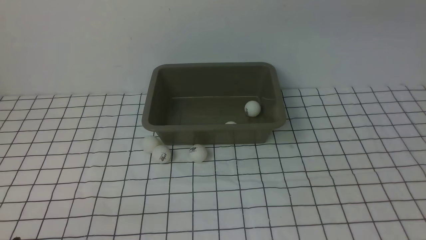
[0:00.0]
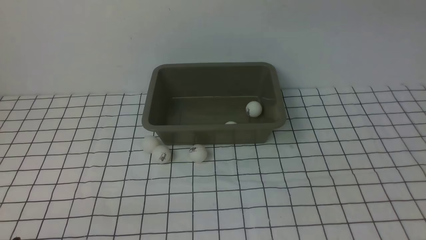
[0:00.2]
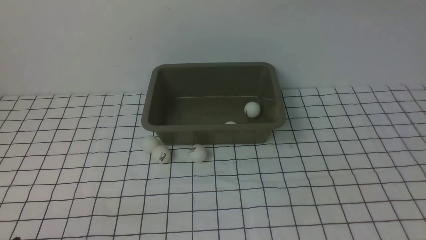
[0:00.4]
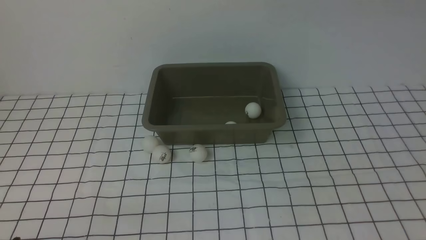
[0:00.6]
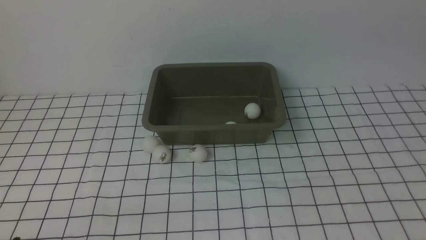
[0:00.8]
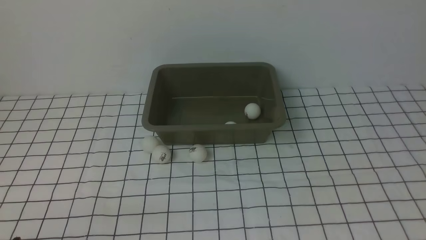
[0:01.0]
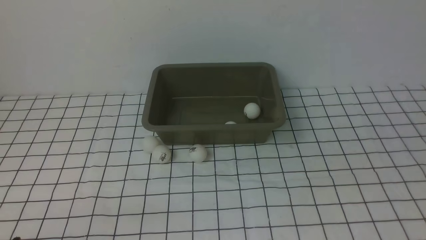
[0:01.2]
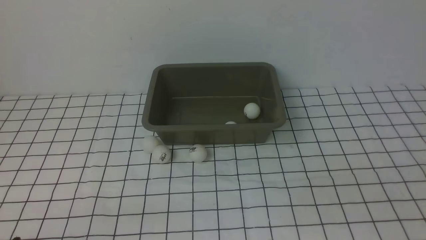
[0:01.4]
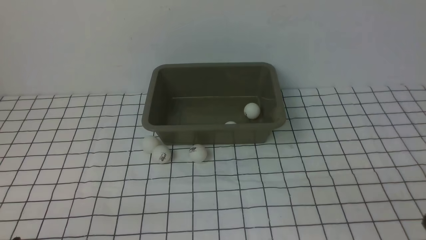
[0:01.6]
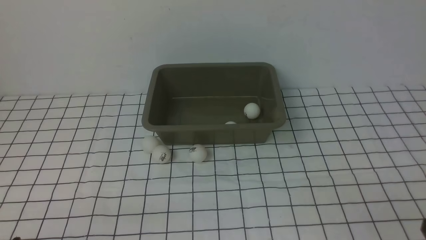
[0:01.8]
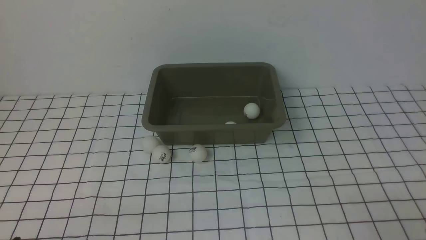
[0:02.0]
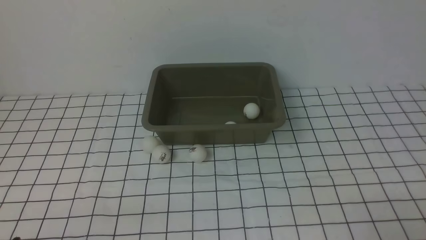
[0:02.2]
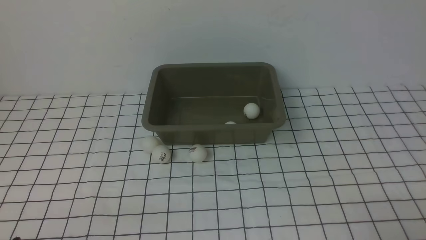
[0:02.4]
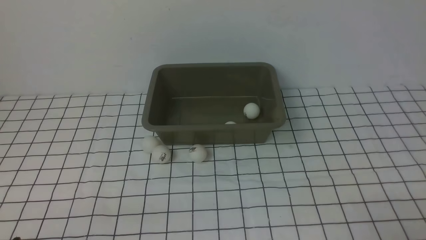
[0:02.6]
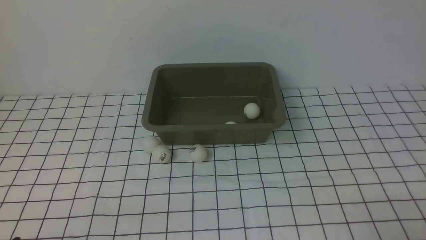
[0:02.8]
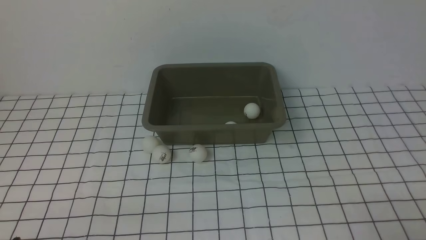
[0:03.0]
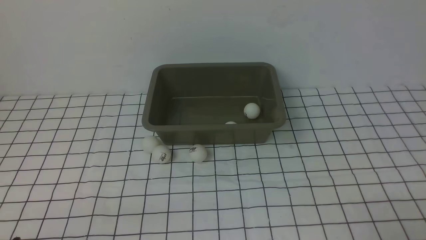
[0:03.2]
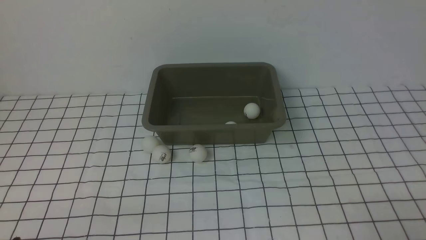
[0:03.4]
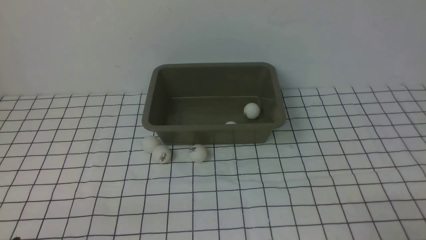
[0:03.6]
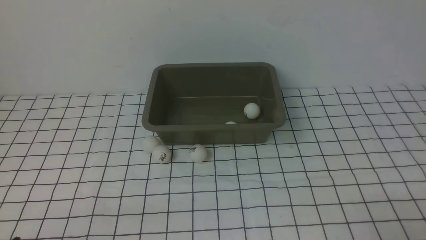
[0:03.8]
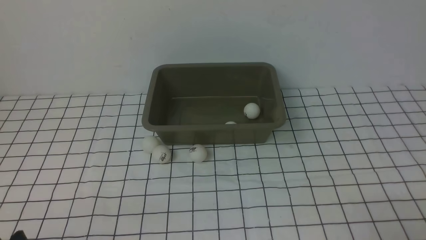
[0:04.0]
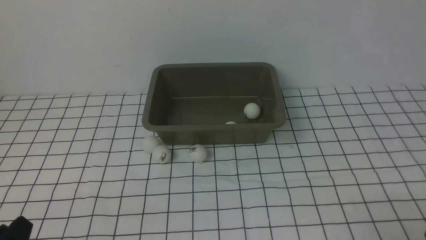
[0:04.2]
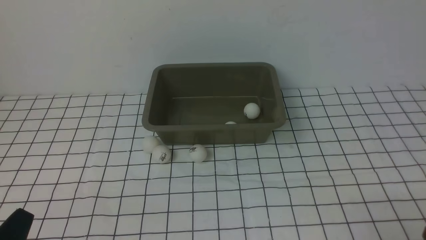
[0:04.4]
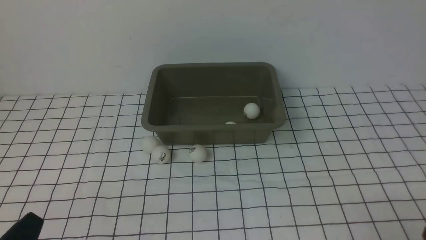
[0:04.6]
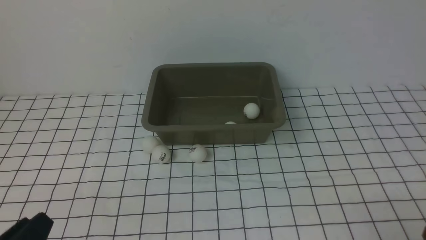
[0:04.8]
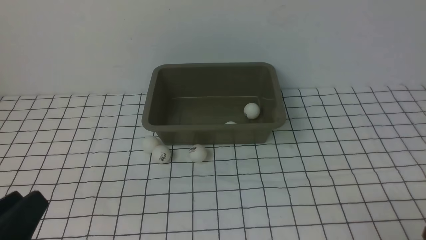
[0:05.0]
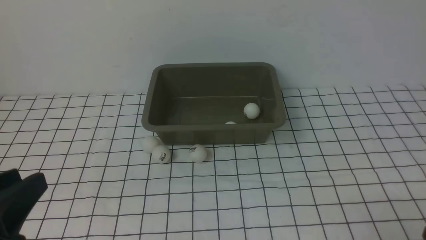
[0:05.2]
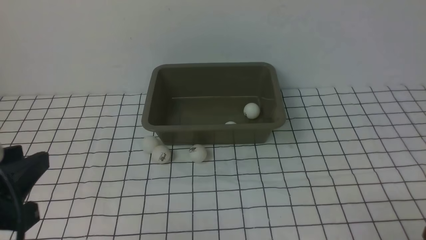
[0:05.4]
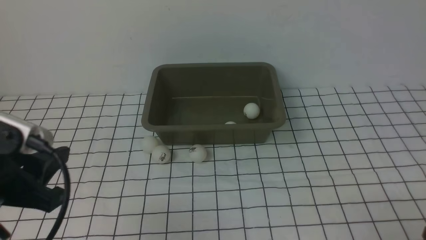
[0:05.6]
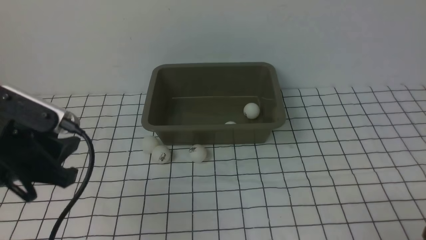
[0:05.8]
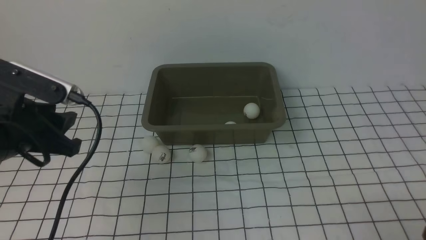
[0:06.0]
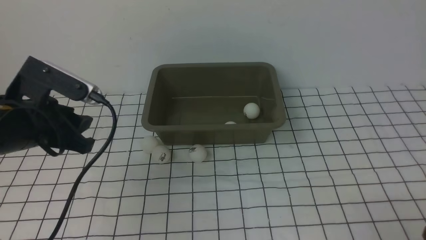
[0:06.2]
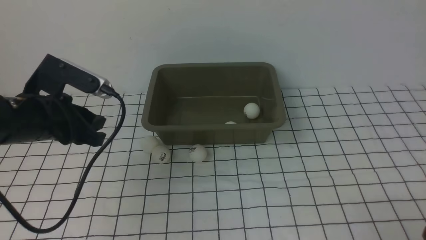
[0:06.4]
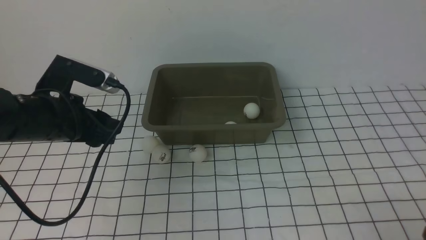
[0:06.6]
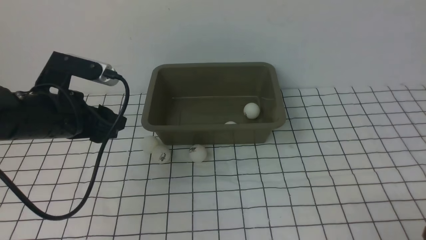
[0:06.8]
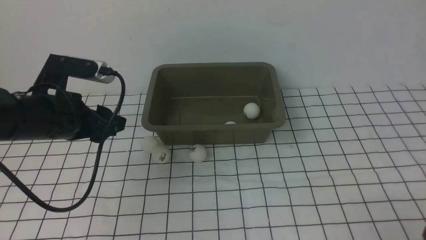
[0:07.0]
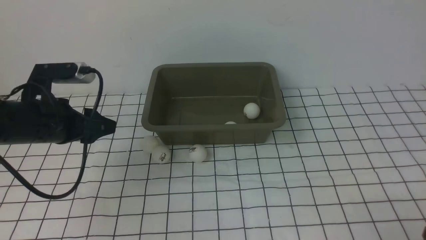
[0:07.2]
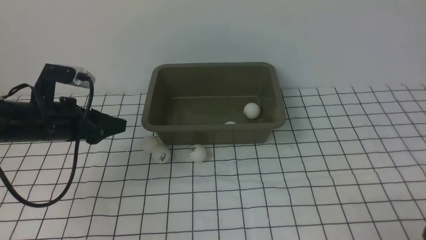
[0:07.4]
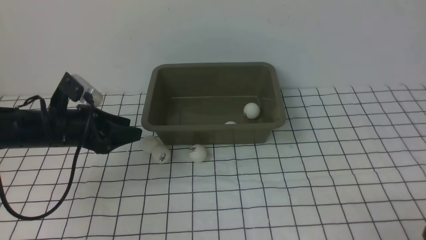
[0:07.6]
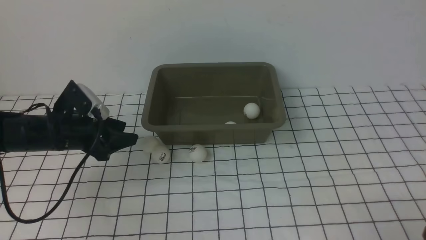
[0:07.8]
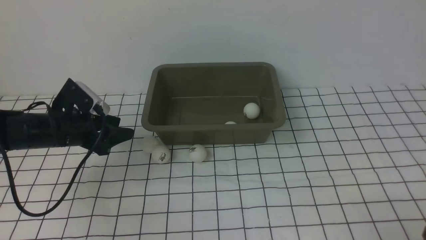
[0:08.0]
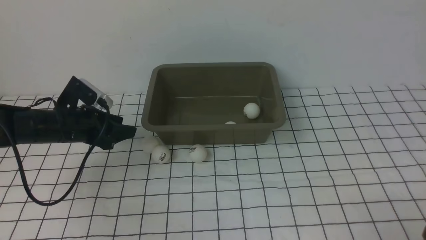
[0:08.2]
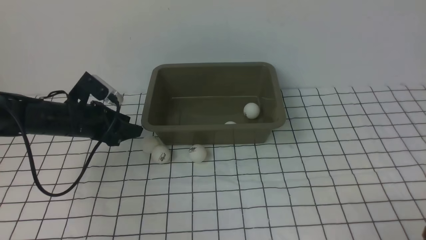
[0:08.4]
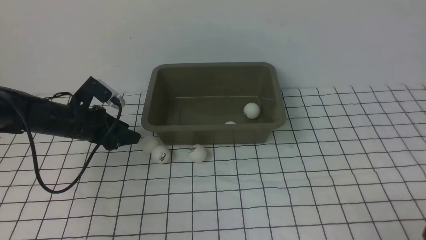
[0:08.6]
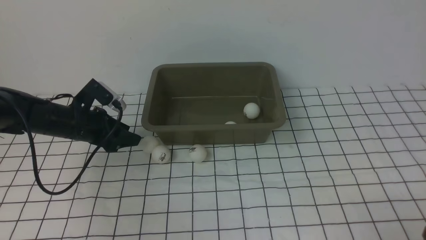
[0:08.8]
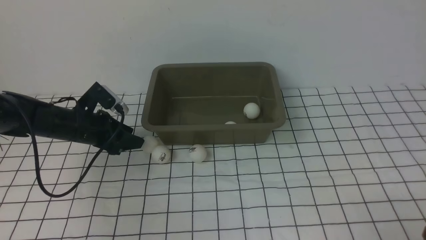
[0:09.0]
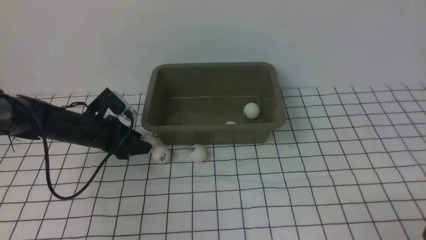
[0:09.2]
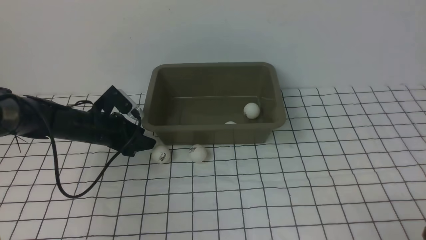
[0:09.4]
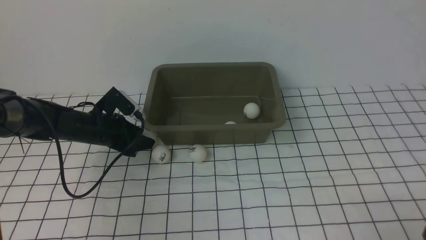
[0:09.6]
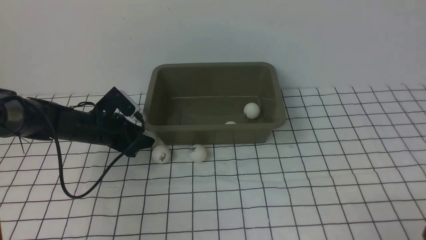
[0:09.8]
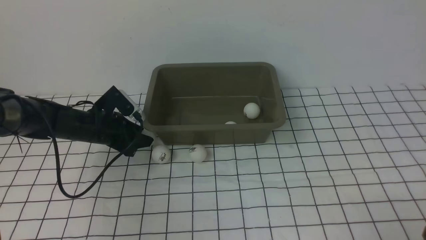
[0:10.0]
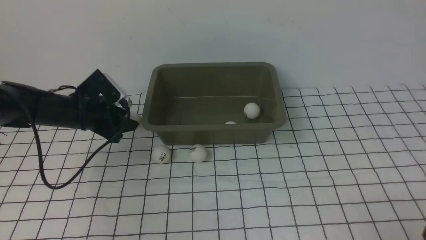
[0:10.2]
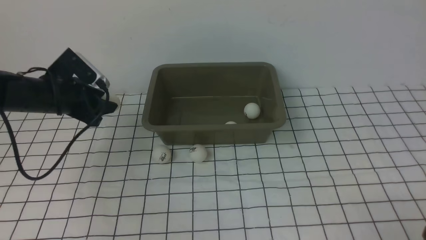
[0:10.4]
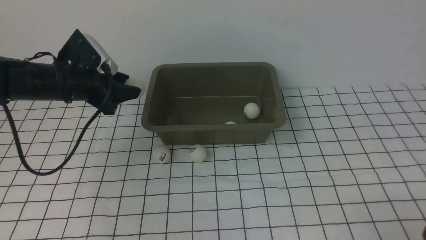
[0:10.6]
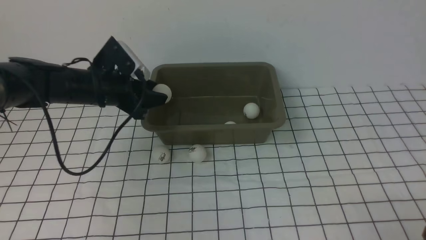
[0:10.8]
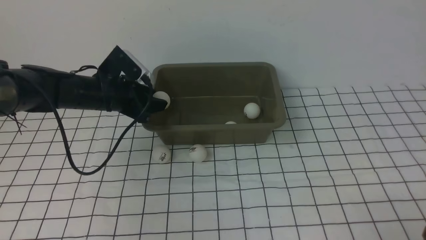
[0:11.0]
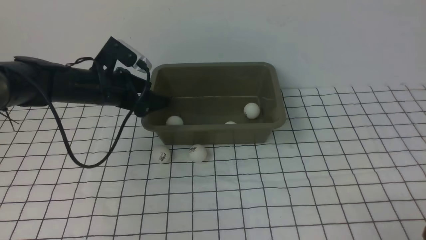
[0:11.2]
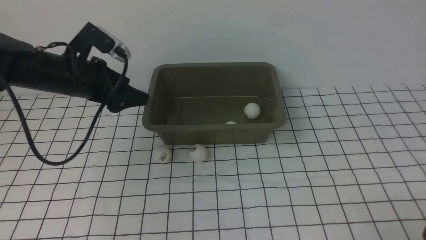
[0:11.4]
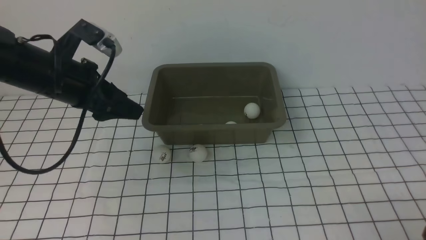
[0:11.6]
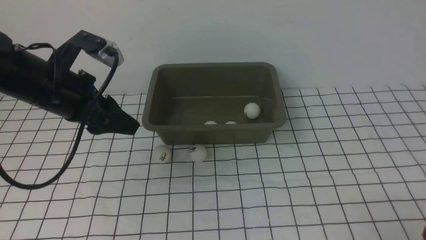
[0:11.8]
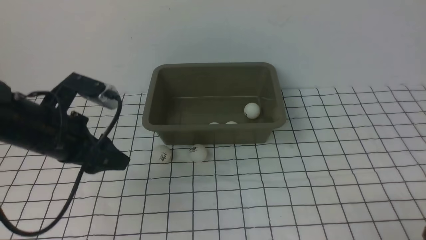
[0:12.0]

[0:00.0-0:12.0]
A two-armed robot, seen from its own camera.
Step, 0:00.0 to 0:10.0: use the left arm to clamp the table tennis ball closest to it.
Step, 0:10.4 to 0:11.2: use the left arm to put the table tennis ball into the box.
0:04.4 to 0:06.0: The left gripper goes approximately 20 cm forward and upward.
0:06.0 to 0:07.6: The left gripper shifts approximately 15 cm forward and downward, and opens.
0:07.6 to 0:09.0: The left gripper moves forward and downward, roughly 10 cm.
0:09.0 to 0:10.4: The left gripper moves upward, some 5 cm.
0:10.4 to 0:12.0: The left gripper goes about 10 cm backward and upward, and opens.

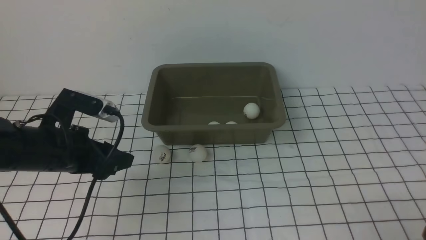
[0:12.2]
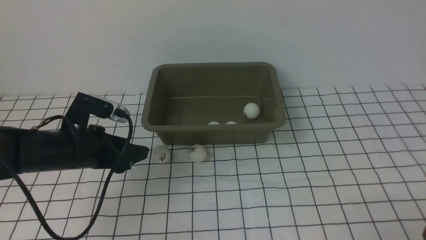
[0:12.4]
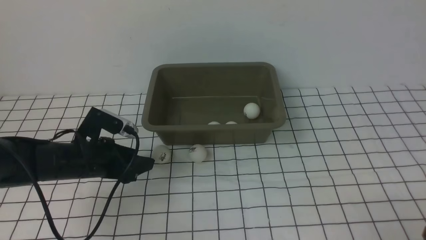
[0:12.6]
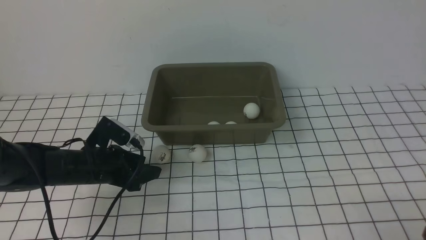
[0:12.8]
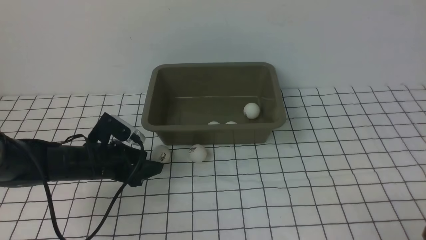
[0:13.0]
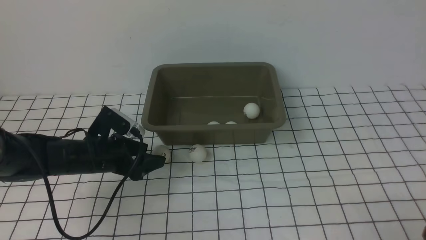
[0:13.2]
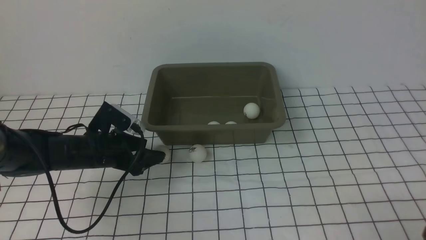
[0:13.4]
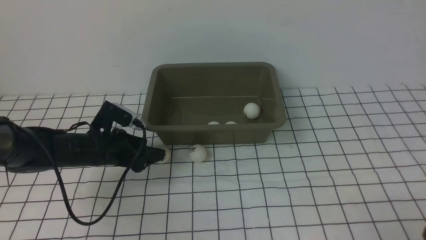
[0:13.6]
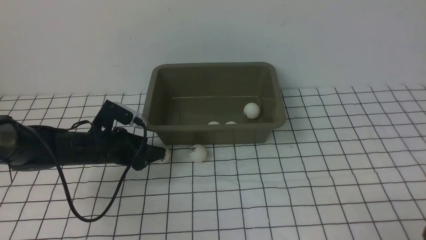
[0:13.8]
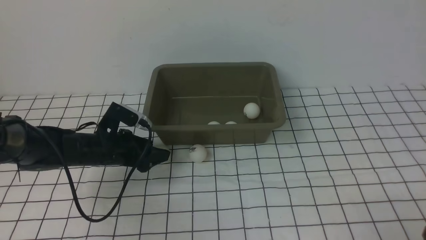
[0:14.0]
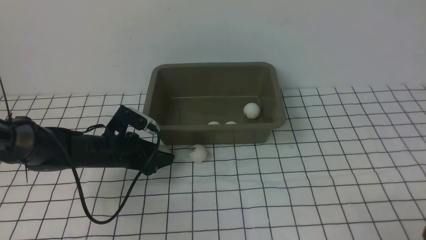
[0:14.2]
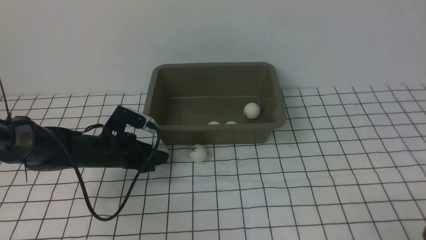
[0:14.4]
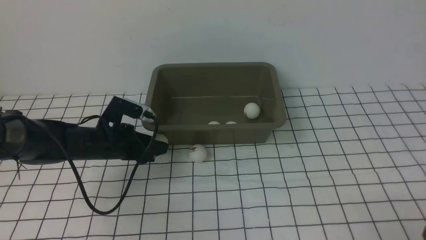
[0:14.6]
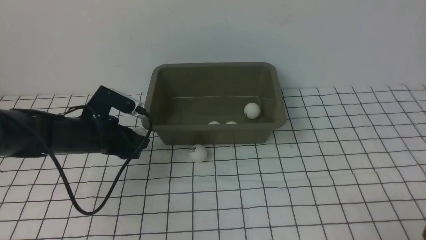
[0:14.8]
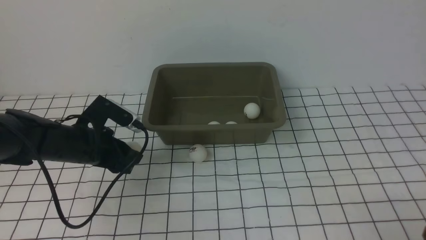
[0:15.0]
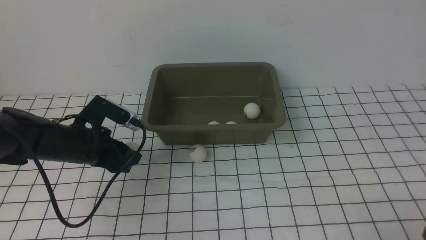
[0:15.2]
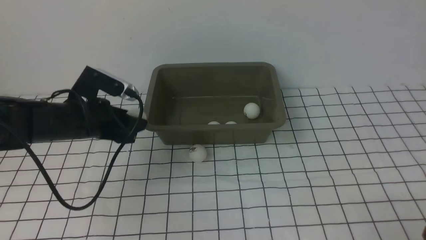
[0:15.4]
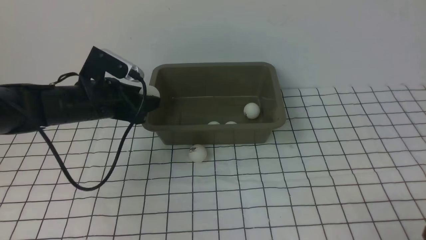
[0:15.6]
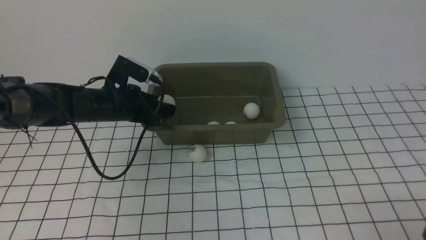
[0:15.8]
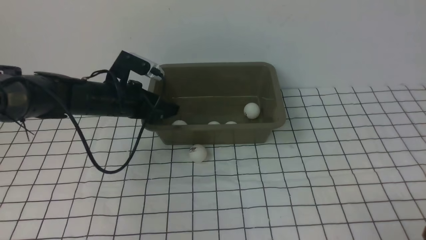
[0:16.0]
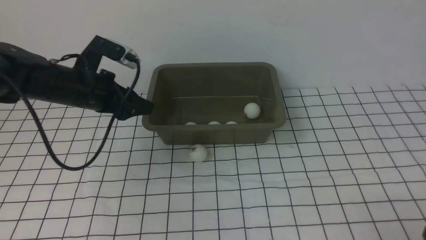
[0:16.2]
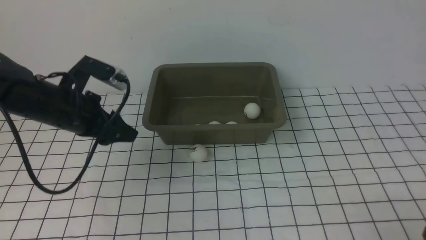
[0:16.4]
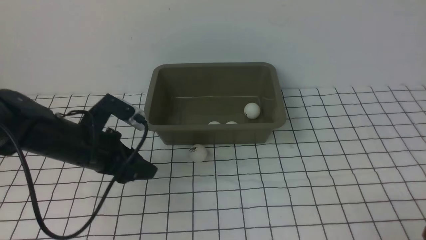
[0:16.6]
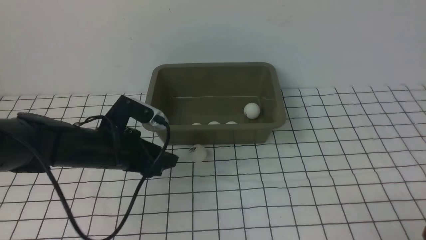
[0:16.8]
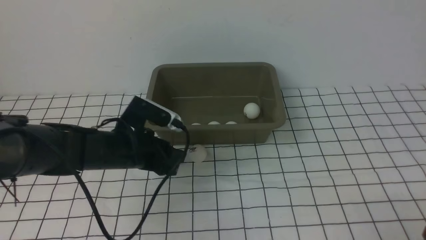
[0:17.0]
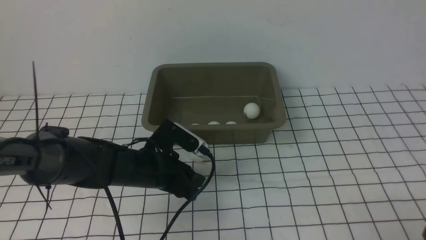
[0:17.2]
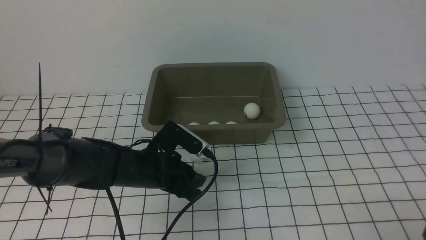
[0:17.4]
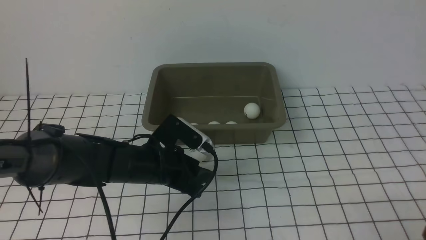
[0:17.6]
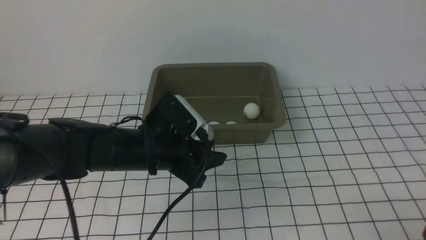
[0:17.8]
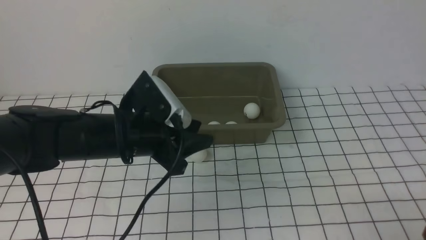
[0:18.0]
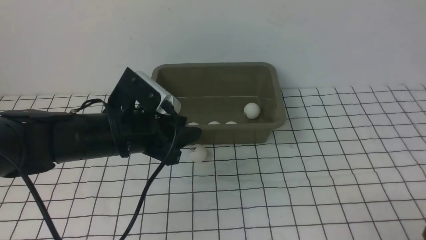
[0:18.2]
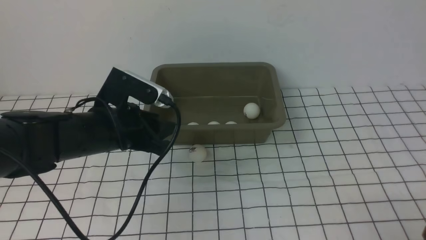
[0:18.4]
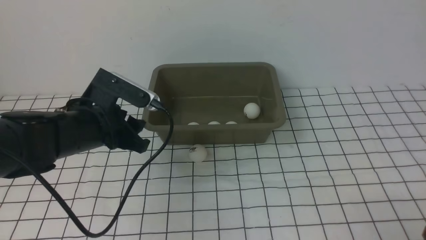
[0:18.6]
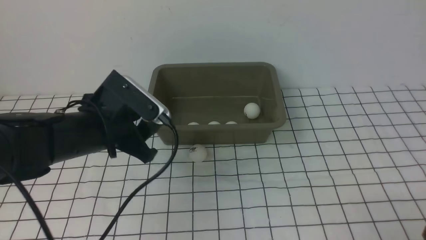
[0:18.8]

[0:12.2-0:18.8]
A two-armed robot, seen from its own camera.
Step, 0:12.2 to 0:14.6: use the left arm to clamp the table tennis ball closest to it.
Step, 0:15.0 to 0:16.0: use the left arm to put the table tennis ball into the box.
0:12.2 to 0:13.8: The left gripper travels downward and forward by roughly 15 cm.
0:13.8 to 0:15.4: The left gripper shifts about 10 cm upward, and closes.
0:15.4 to 0:17.2: The left gripper shifts some 10 cm to the right, downward and backward.
0:17.2 to 0:18.8: The left gripper shifts approximately 10 cm upward.
